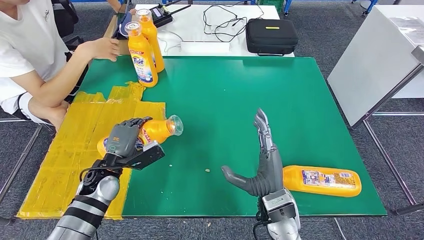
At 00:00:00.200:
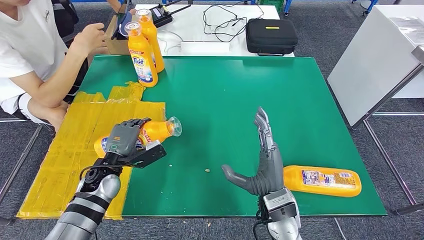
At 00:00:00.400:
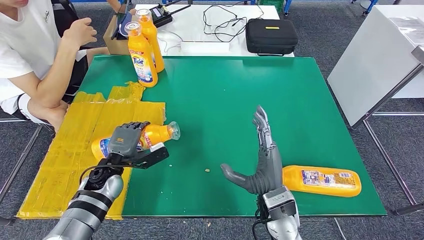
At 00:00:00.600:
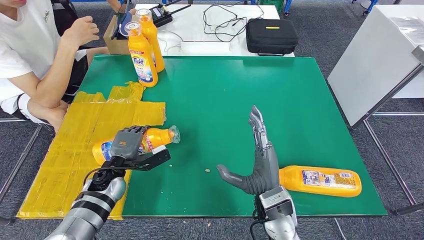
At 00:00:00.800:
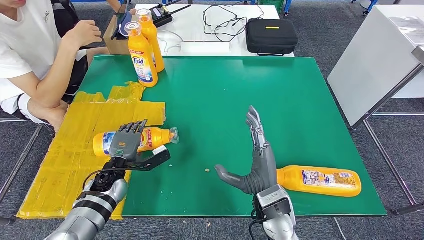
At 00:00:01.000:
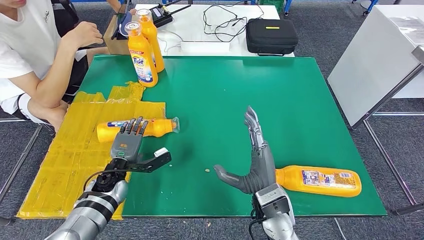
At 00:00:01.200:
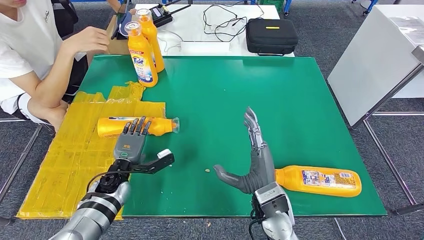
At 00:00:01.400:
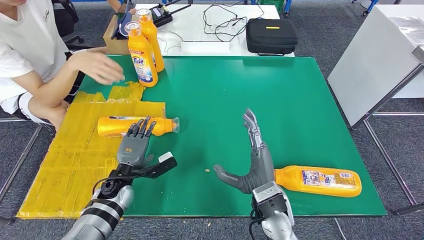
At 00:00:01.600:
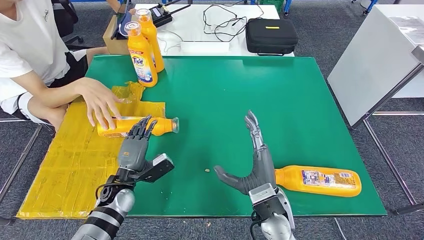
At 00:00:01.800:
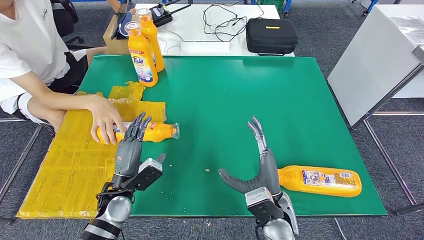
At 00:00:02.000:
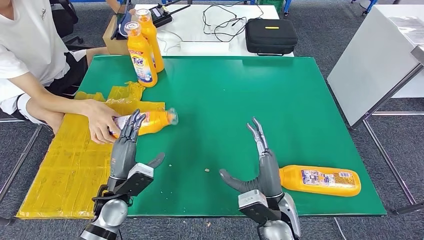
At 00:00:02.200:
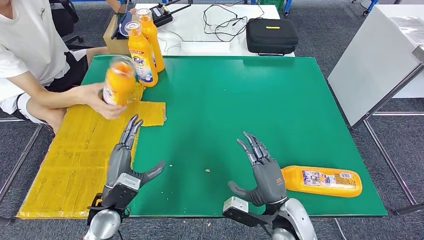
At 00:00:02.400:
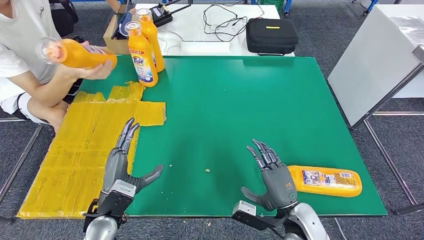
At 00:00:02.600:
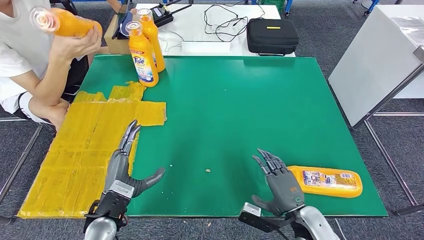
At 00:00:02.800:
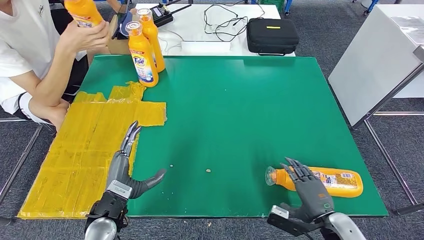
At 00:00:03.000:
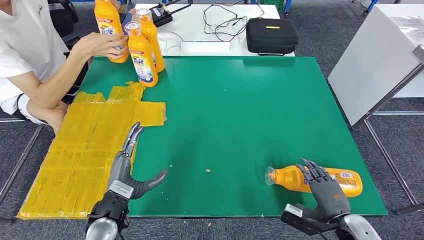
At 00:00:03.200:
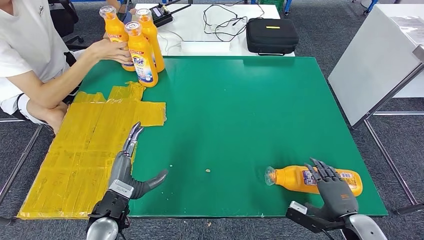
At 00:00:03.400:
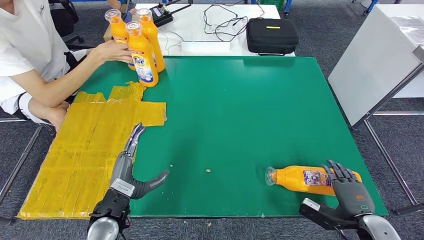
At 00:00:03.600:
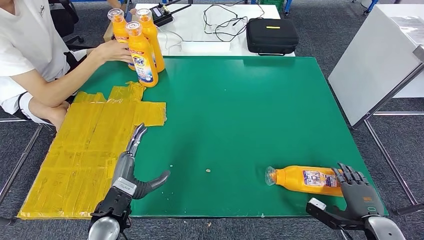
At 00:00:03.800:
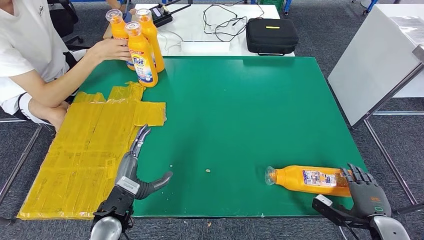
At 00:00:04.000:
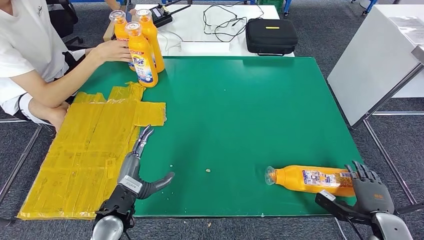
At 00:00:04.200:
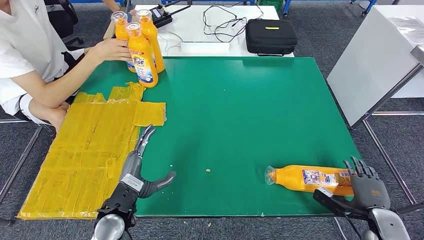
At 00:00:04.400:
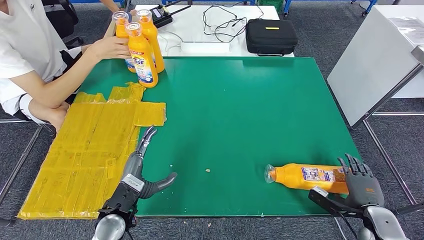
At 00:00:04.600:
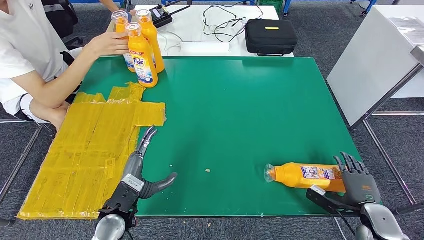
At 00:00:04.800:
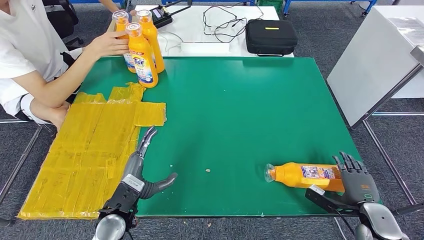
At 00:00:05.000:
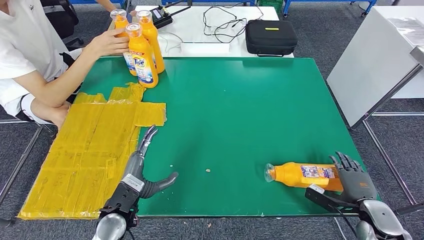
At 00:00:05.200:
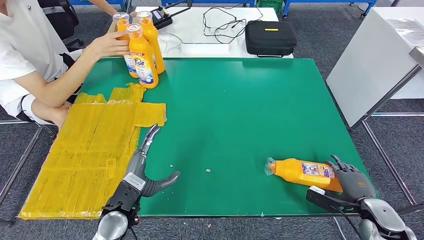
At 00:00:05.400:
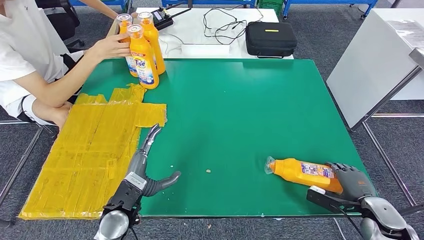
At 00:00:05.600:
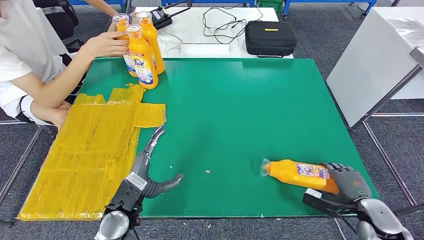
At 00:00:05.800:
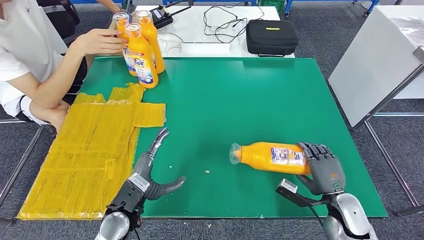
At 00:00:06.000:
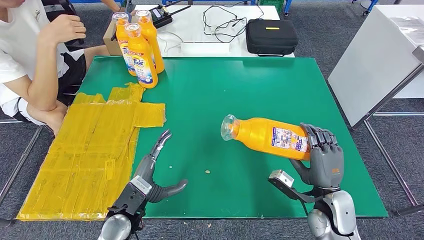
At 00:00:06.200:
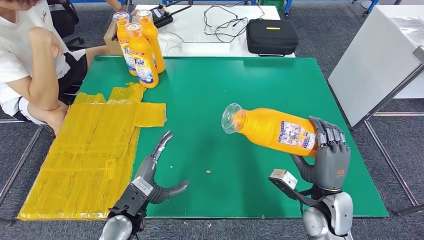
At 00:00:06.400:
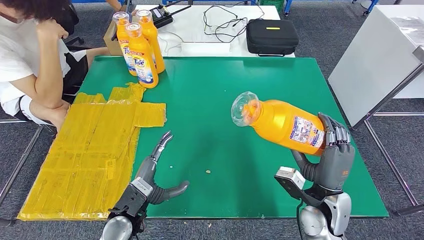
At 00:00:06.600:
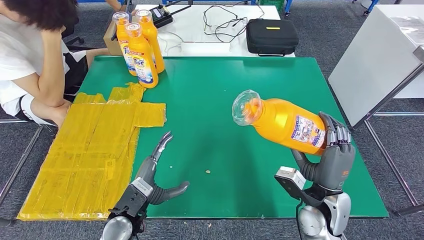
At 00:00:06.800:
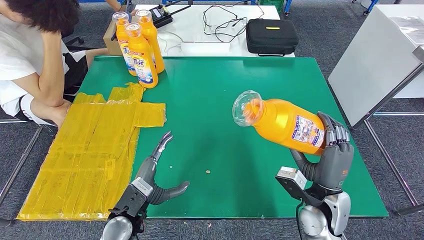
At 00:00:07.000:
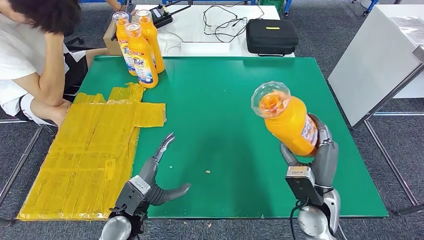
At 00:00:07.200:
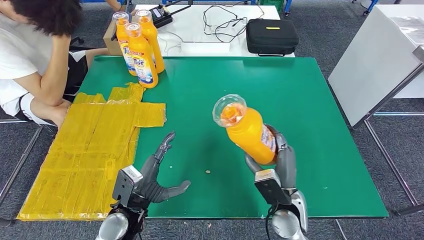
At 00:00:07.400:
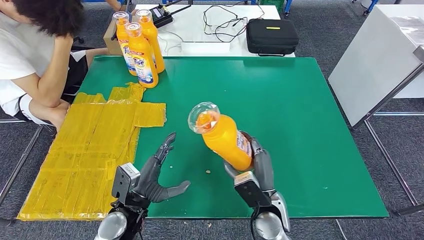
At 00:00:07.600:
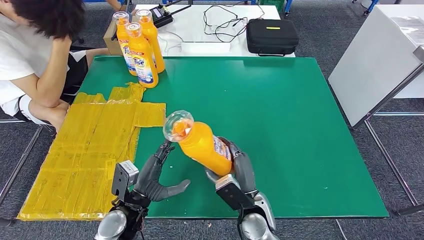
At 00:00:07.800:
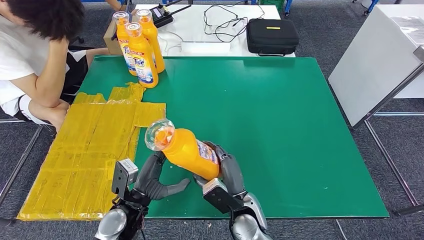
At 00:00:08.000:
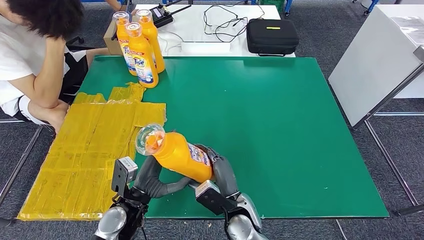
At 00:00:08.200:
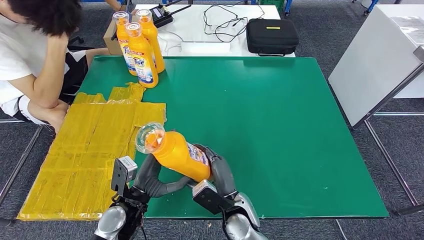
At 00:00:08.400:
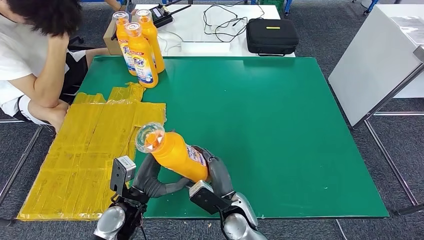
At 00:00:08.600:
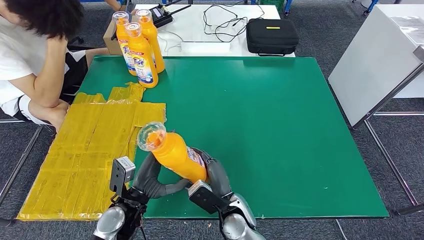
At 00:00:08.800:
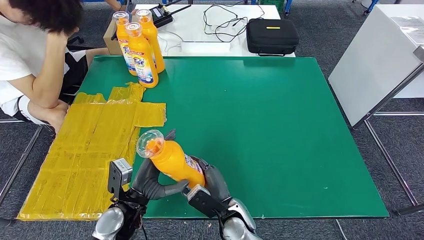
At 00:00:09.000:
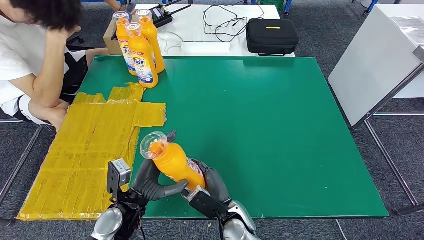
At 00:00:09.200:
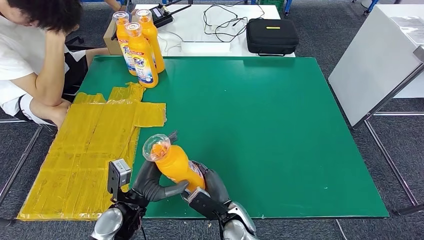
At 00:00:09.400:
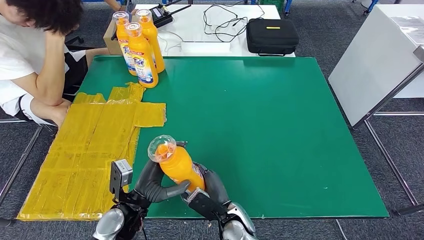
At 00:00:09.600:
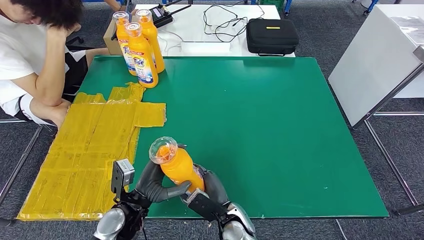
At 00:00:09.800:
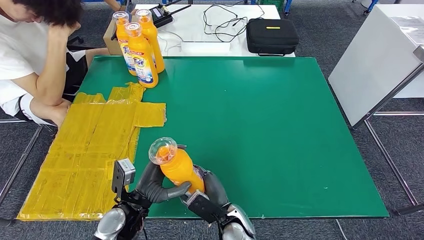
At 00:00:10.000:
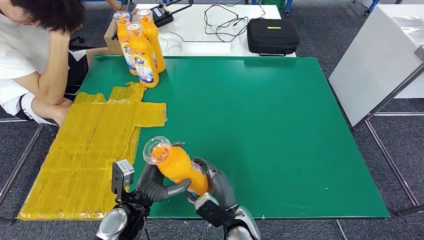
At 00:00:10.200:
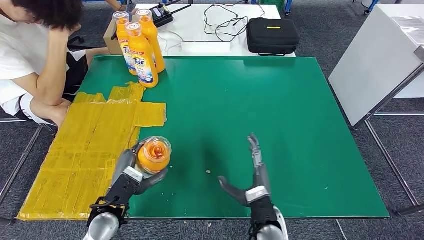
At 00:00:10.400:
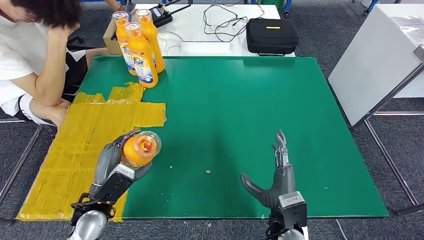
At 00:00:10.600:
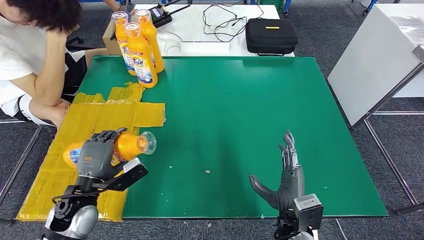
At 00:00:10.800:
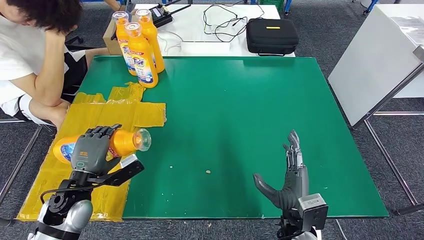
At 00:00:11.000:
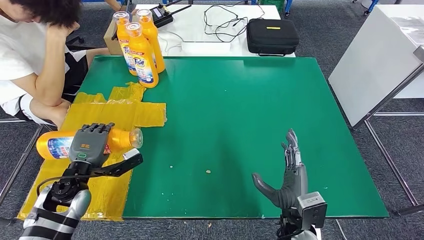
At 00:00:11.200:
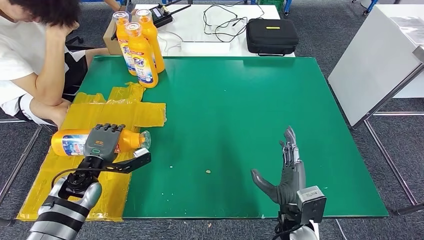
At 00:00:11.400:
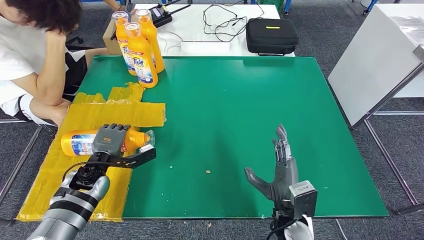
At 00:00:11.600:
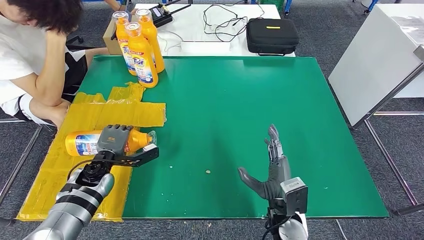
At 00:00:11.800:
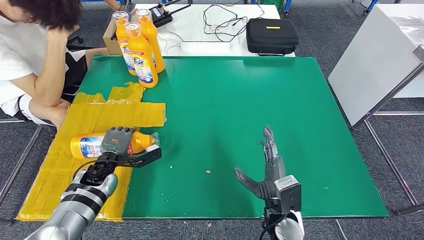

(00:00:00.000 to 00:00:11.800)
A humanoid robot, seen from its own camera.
Step, 00:00:00.000 - 00:00:03.000: Flip the fast-moving consumer goods bottle to the front side.
Step, 00:00:03.200 - 00:00:09.600: Pick up the fast-moving consumer goods bottle from the table.
00:00:00.000 - 00:00:01.400: The left hand goes roughly 5 cm downward.
00:00:01.400 - 00:00:03.000: The left hand moves backward and upward, about 10 cm; the right hand is displaced to the right by about 20 cm.
00:00:03.000 - 00:00:04.400: The right hand heads to the right, covering some 10 cm.
00:00:04.400 - 00:00:06.000: The right hand is displaced to the left and upward by approximately 15 cm.
00:00:07.400 - 00:00:08.800: The right hand heads to the left, covering roughly 10 cm.
00:00:08.800 - 00:00:10.400: The right hand moves to the right and upward, about 10 cm. The left hand travels to the left by some 5 cm.
00:00:10.400 - 00:00:11.800: The left hand shifts some 10 cm forward.

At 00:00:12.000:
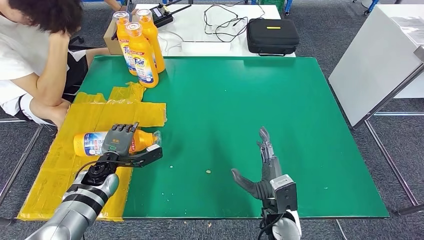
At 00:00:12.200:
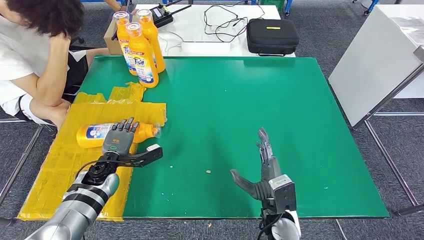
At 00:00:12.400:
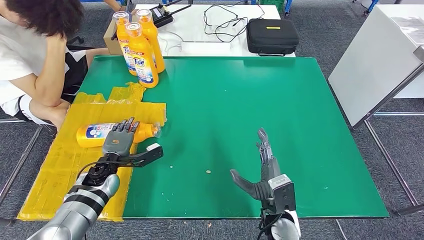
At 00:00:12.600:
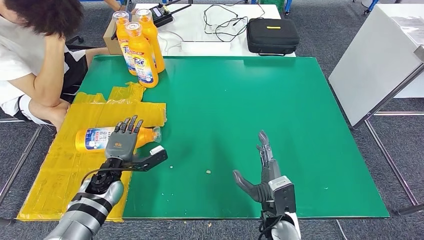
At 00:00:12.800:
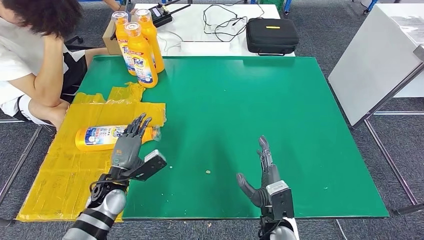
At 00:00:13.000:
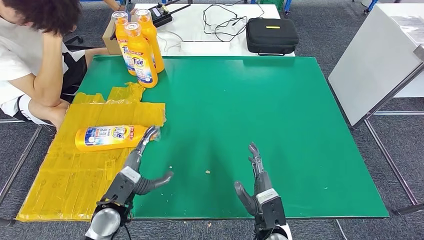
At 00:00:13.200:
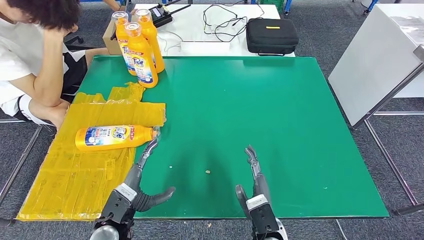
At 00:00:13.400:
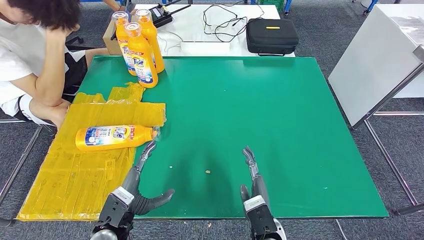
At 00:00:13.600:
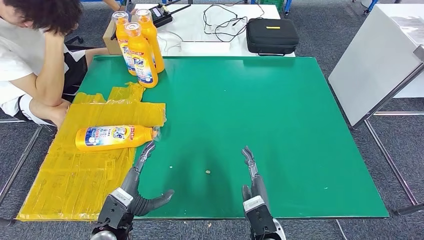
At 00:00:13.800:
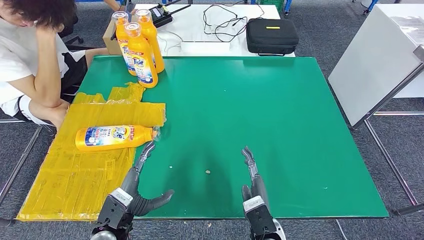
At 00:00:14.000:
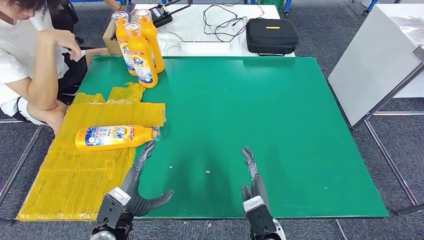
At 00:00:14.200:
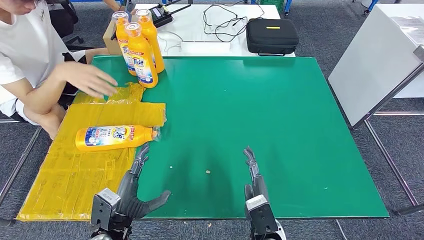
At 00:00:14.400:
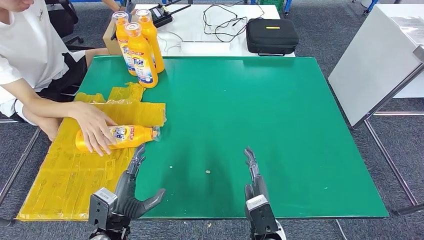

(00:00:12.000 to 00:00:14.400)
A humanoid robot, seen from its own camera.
Step, 00:00:12.000 - 00:00:14.400: Flip the fast-moving consumer goods bottle to the front side.
00:00:12.000 - 00:00:13.200: The right hand ends up about 5 cm from where it was; the left hand heads backward and to the right, covering approximately 15 cm.
00:00:13.200 - 00:00:14.400: The hands stay close to where they were, moving slightly.
